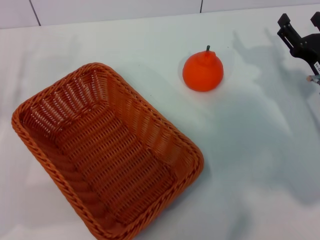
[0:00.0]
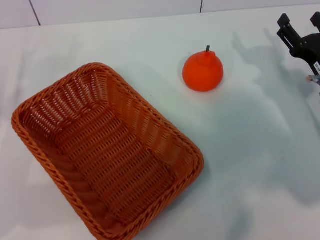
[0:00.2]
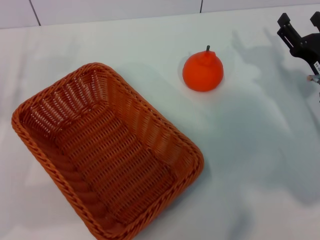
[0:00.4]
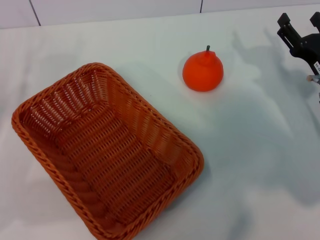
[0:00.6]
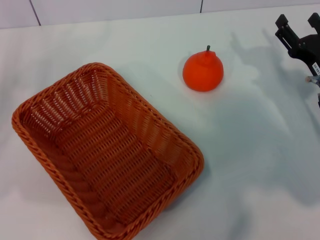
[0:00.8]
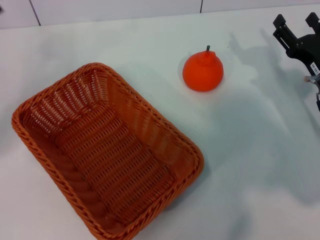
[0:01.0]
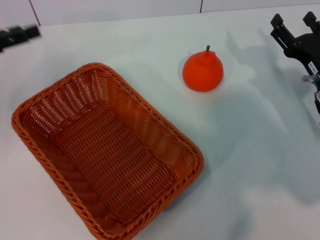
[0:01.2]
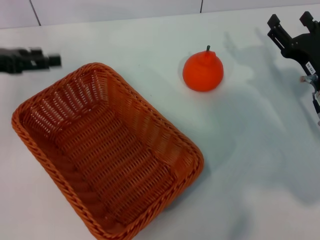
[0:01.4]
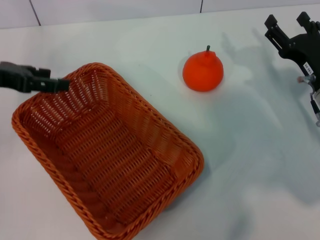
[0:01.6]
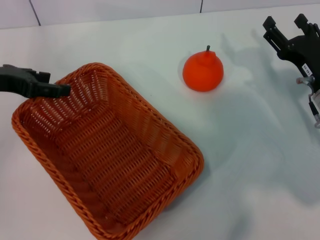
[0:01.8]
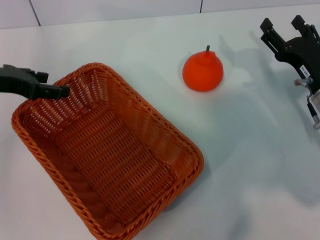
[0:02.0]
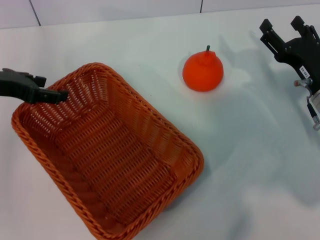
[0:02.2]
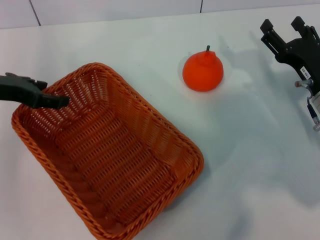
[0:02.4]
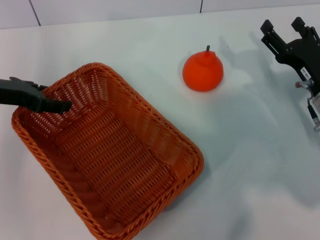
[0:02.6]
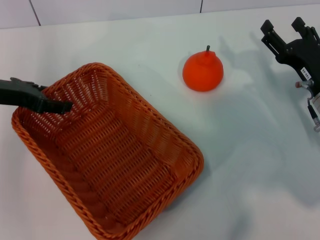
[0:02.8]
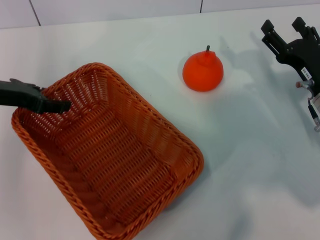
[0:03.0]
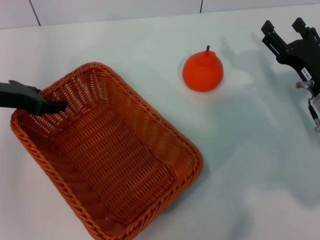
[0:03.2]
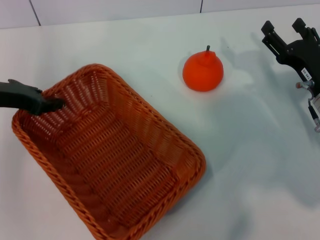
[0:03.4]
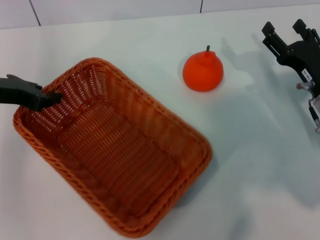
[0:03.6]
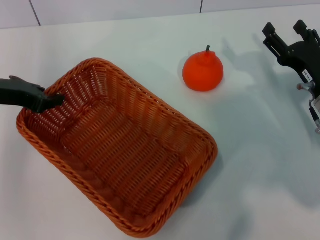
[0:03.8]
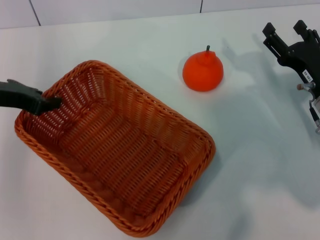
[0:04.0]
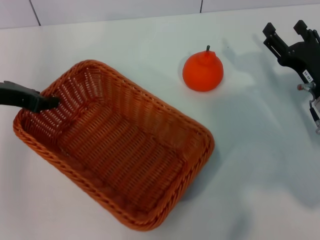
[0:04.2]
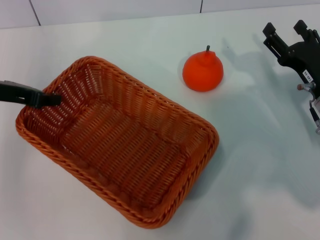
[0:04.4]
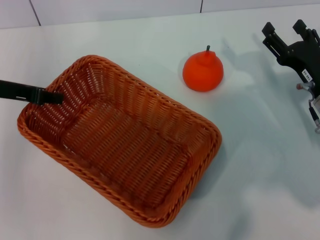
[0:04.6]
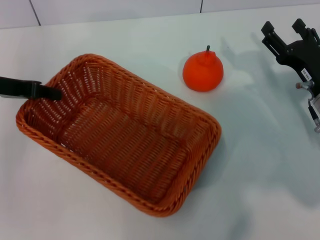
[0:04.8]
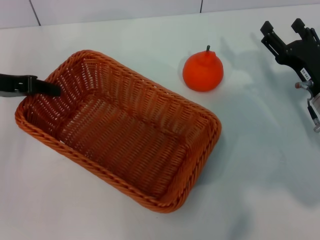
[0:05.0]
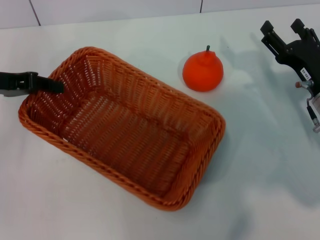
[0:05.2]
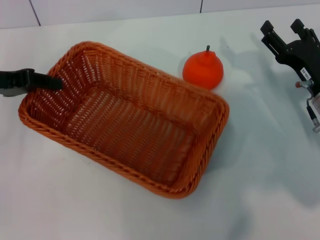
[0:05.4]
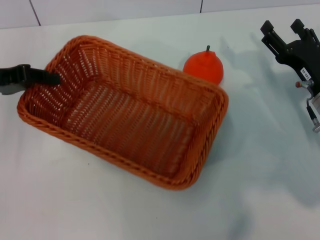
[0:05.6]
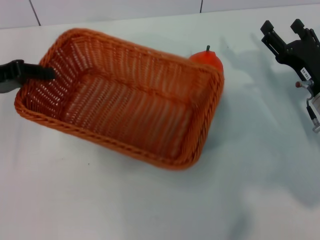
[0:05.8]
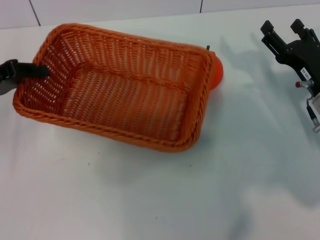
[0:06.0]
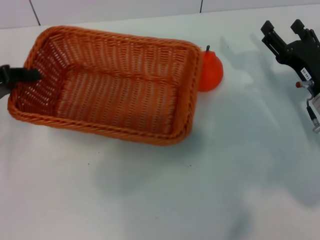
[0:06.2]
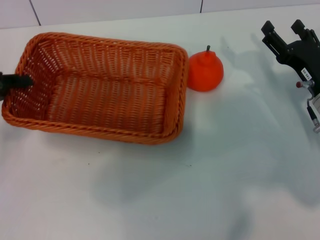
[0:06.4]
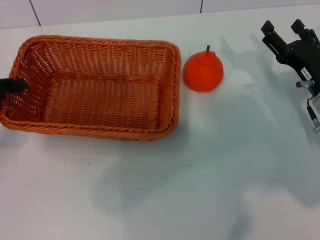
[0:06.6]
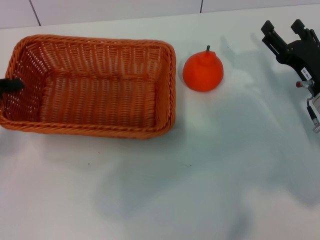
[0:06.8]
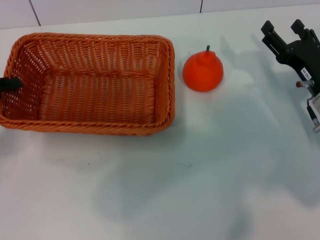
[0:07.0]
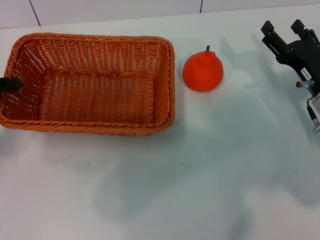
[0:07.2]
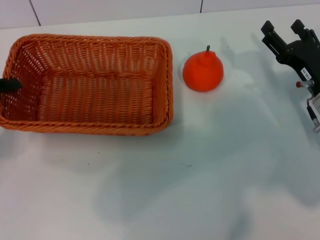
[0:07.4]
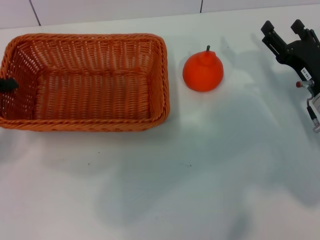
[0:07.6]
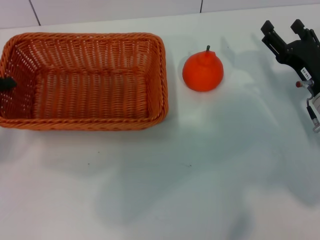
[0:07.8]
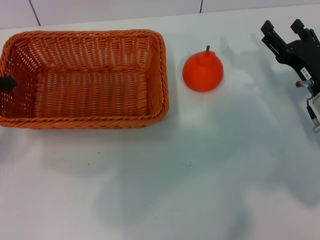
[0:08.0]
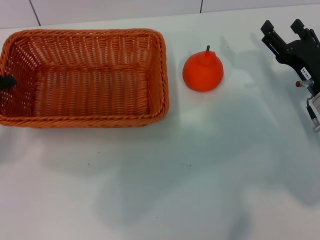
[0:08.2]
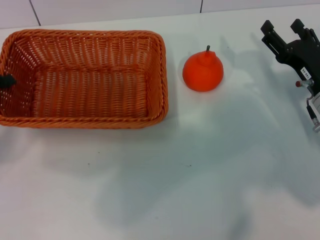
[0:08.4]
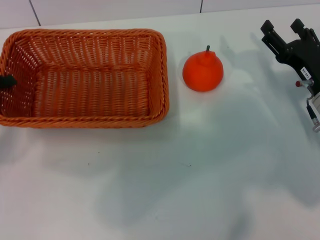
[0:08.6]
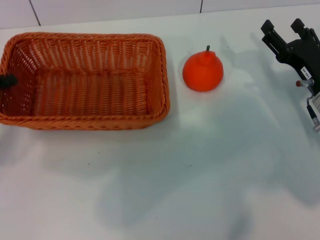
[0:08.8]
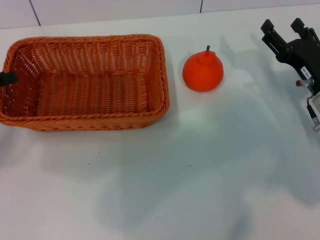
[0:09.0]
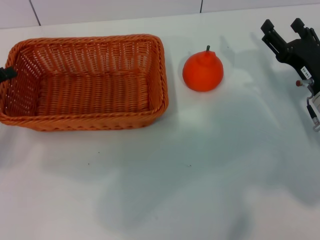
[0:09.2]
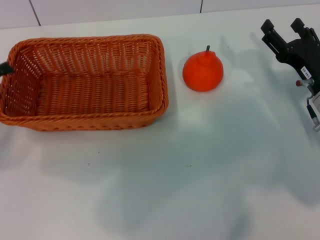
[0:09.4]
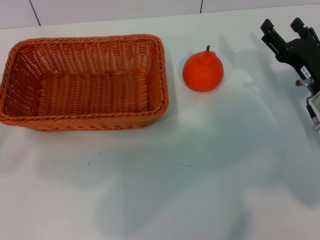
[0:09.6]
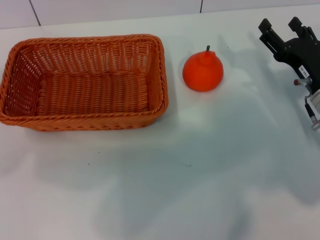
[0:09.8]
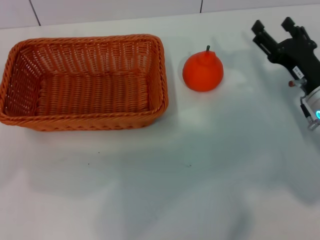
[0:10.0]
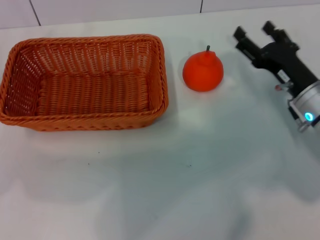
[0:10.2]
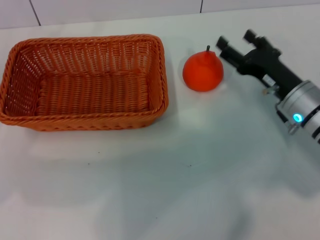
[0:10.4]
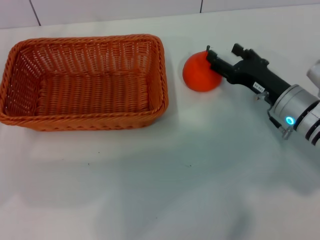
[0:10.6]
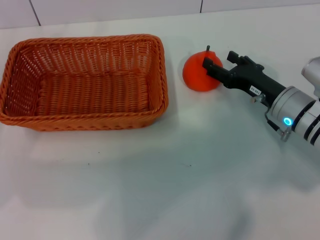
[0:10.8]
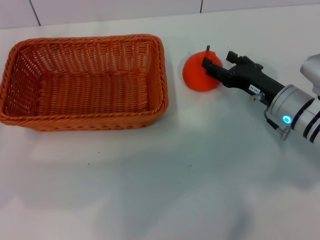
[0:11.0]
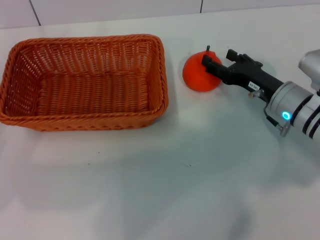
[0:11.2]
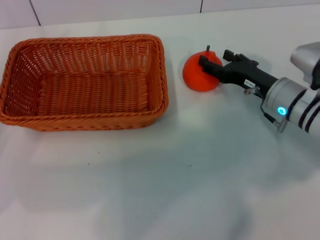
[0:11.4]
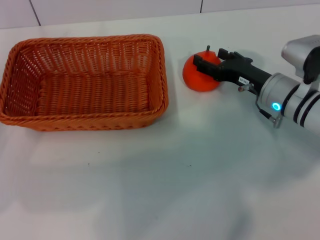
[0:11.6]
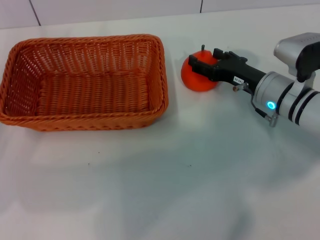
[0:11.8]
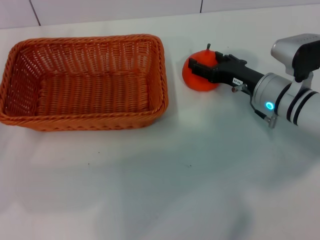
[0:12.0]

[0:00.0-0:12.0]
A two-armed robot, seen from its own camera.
Task of the whole recording: the left gripper pick up the yellow basket and place it horizontally in the middle of the table, the right gripper pick up the orange and place it into the yellow basket.
Step, 0:00.0 to 0:05.6: Pick up the light basket with the left gripper.
Step, 0:05.8 to 0:09.4: Place the light basket in the center of view with the left gripper.
0:00.0 to 0:01.6: The left gripper is displaced upward and forward by approximately 15 cm.
0:01.6 to 0:03.0: The grippers stay close to where they were, moving slightly.
0:03.0 to 0:04.4: The left gripper closes up.
0:04.4 to 0:06.0: The left gripper moves some 5 cm.
0:06.0 to 0:07.6: The left gripper changes place by roughly 5 cm.
0:07.6 to 0:09.0: Both grippers stay about where they are.
0:09.0 to 0:10.4: The left gripper opens its fingers.
0:10.4 to 0:12.0: The grippers stay close to where they were, moving slightly.

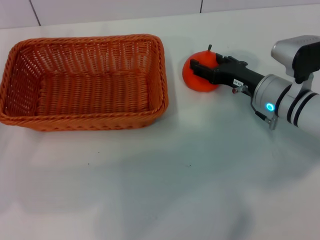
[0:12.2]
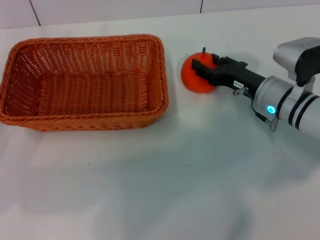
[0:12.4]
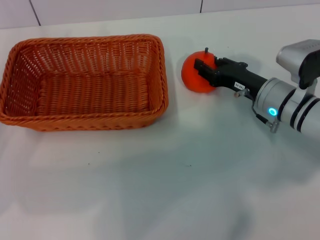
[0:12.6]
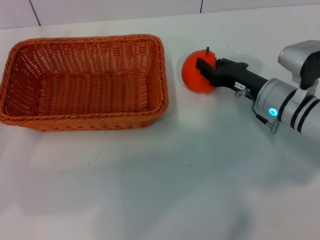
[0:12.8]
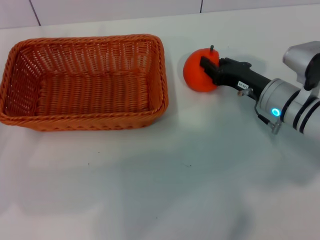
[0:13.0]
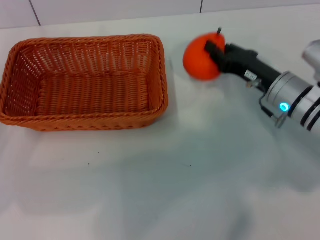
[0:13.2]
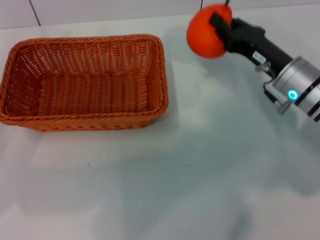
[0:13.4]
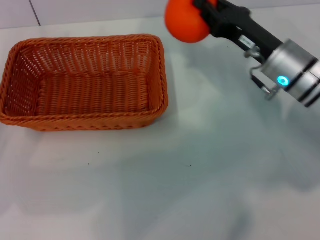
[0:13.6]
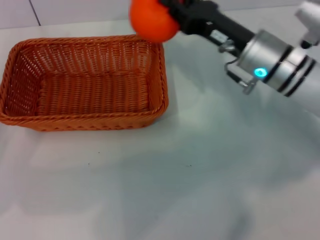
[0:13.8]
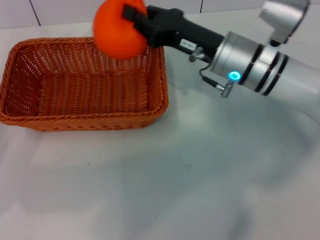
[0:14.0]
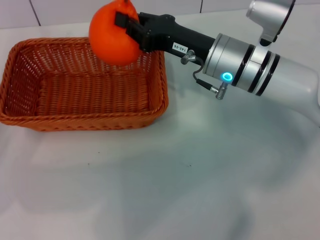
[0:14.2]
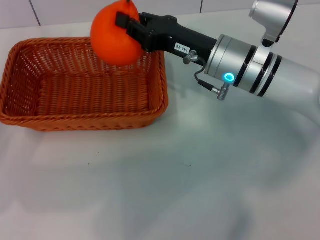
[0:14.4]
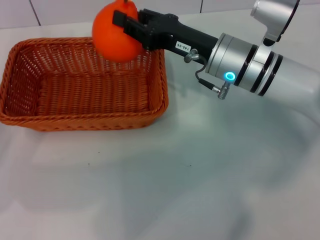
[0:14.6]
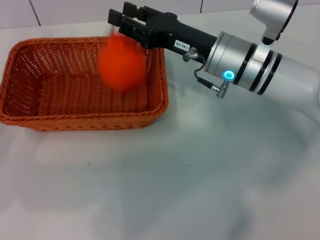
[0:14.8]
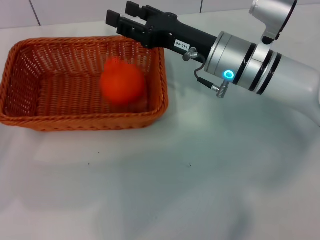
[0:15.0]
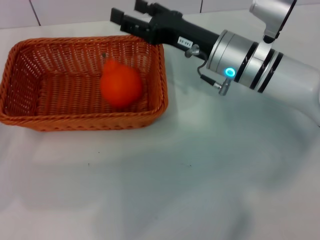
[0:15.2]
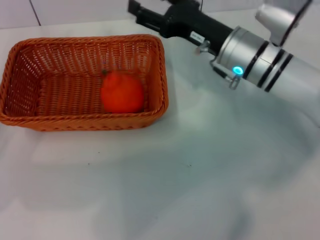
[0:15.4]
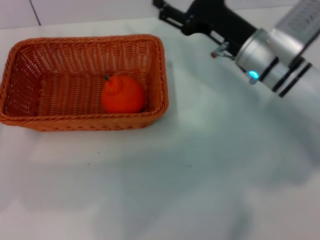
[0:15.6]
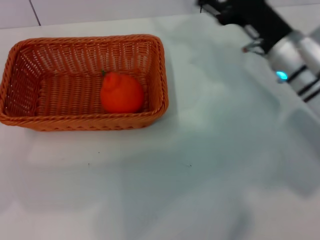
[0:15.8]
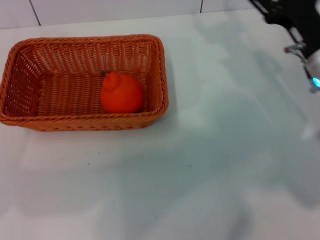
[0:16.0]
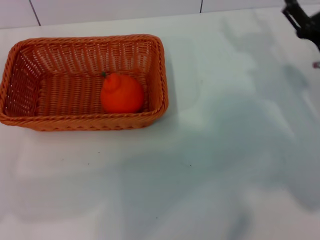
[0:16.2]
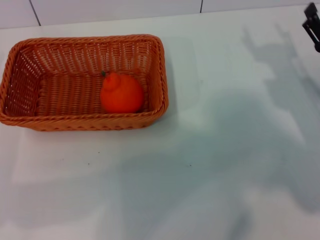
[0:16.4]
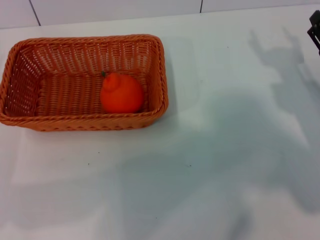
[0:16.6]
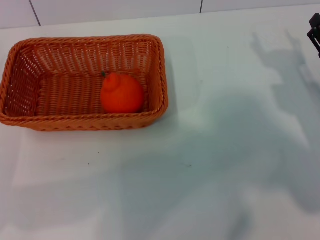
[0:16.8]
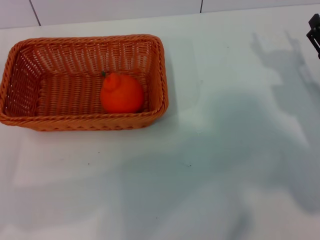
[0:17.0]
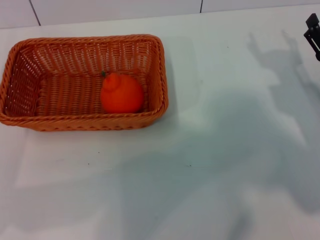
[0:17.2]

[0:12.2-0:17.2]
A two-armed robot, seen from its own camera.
Task of the whole recording: the left gripper pick up the yellow basket and place it horizontally in the middle of the table, the right gripper pick up the orange and place it into the yellow basket.
Step, 0:13.4 to 0:15.2: Place the orange into the light basket with the right gripper.
0:12.2 to 0:13.8: The right gripper shifts roughly 10 cm upward, and closes up.
0:13.8 to 0:15.6: The right gripper opens its fingers.
0:15.6 to 0:17.2: The right gripper goes roughly 15 cm to the right, backward and downward.
